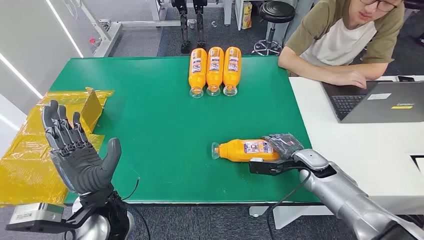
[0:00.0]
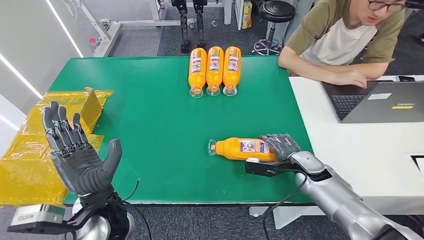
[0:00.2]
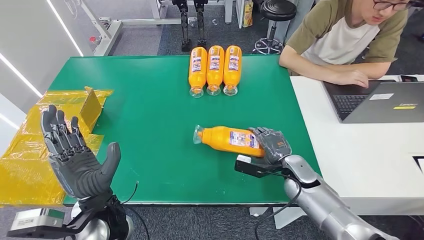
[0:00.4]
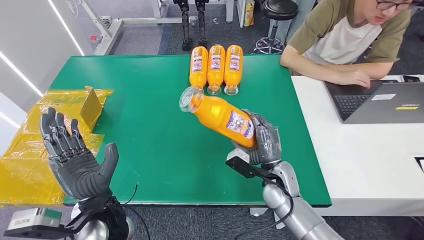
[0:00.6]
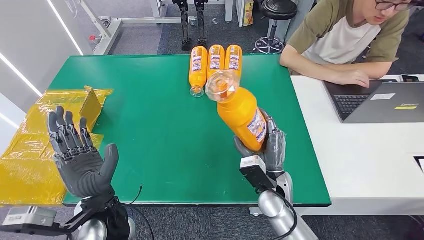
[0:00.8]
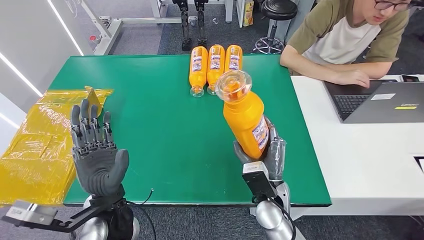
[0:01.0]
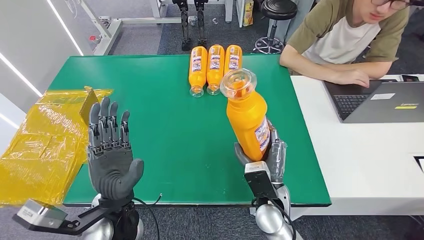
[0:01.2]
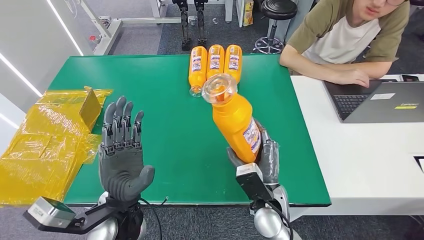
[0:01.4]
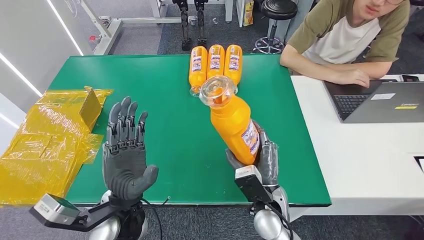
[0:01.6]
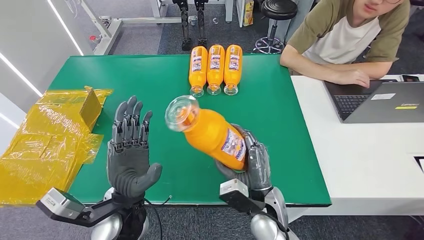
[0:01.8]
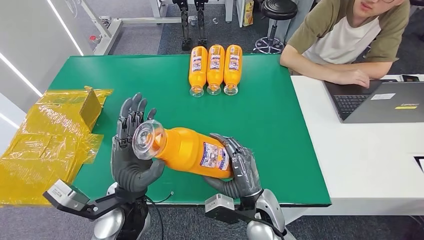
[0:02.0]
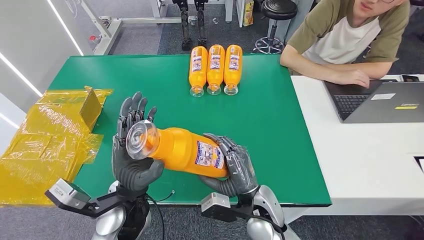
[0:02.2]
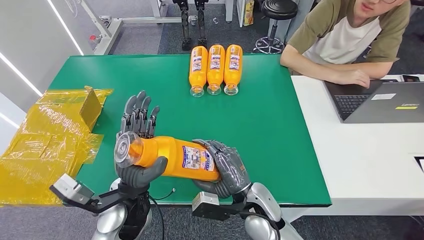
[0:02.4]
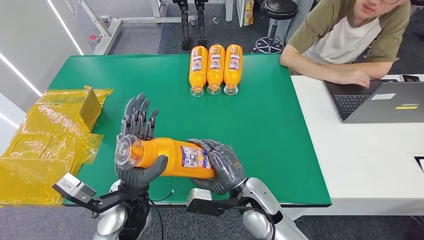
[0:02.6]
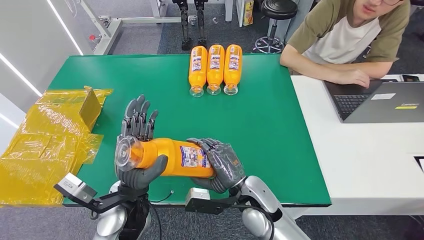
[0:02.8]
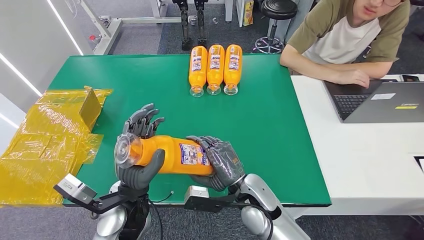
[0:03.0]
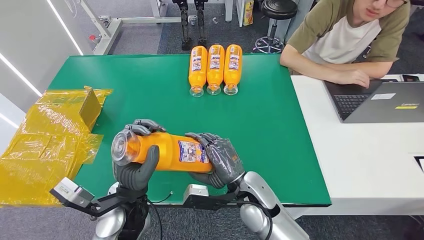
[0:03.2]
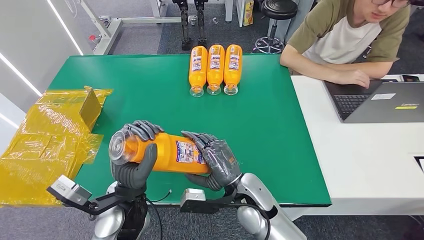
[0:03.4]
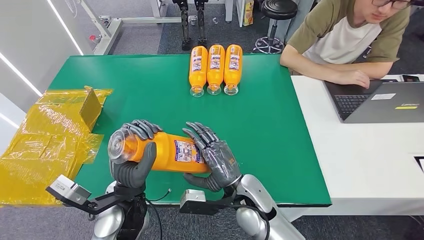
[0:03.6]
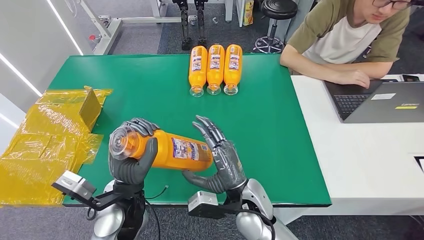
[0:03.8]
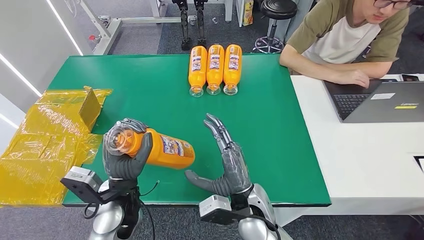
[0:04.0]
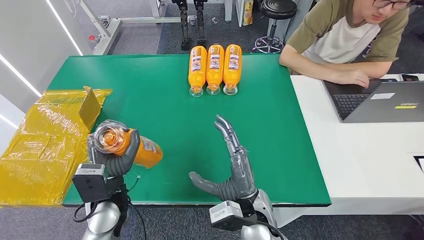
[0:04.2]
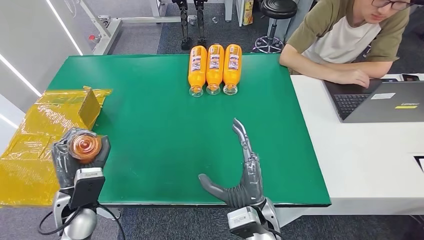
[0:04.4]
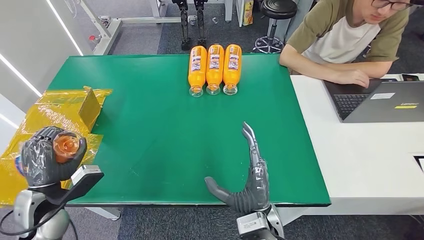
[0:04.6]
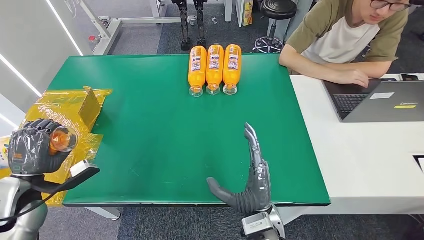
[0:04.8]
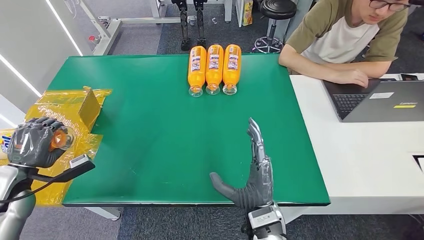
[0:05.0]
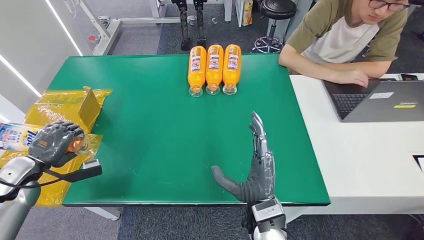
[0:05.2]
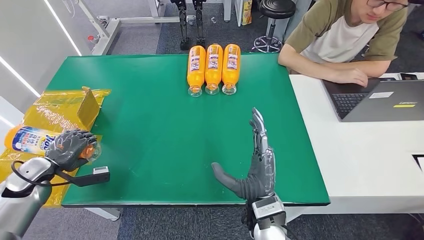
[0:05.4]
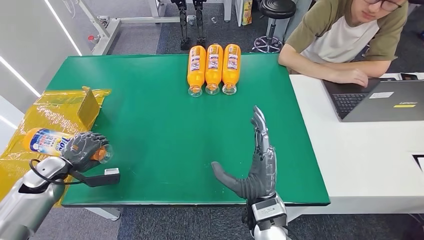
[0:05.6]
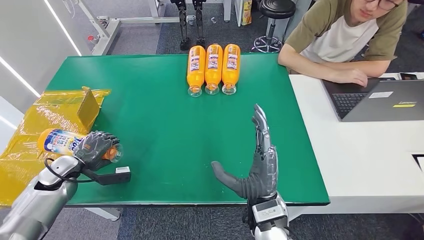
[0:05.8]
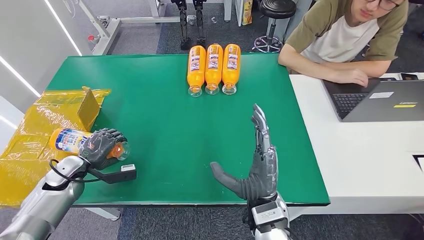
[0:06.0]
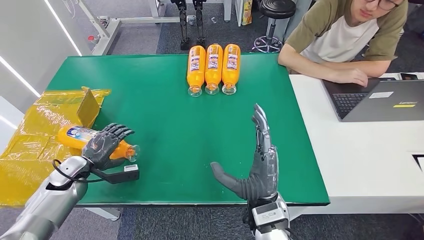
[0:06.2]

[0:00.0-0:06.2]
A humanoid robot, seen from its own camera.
Step, 0:00.0 to 0:01.8: Pick up the bottle from the table.
Step, 0:02.0 to 0:06.2: Turn the bottle to the front side.
0:03.2 to 0:04.6: The left hand heads to the left, covering about 20 cm, while the right hand is displaced backward by approximately 5 cm.
0:04.6 to 0:06.2: The left hand goes some 10 cm forward and to the left.
